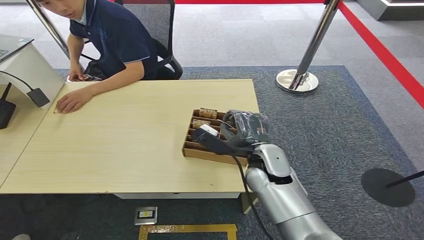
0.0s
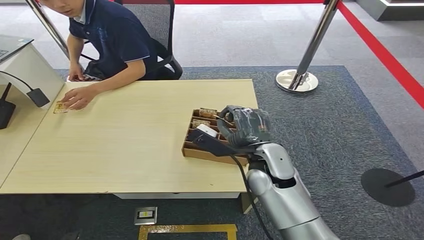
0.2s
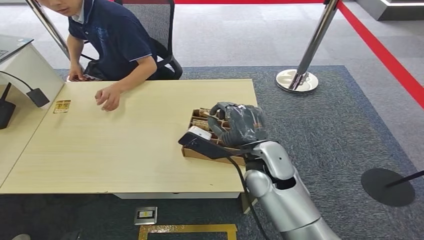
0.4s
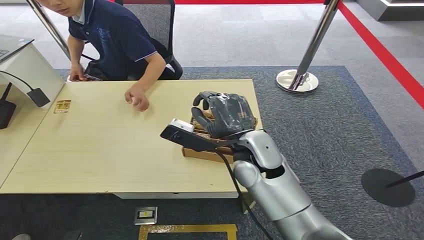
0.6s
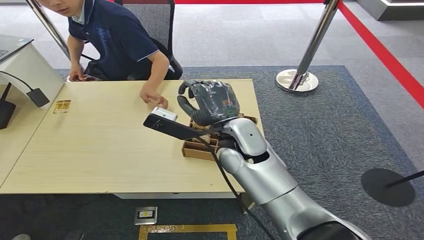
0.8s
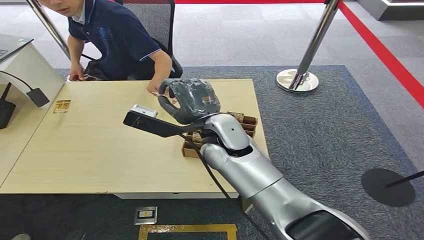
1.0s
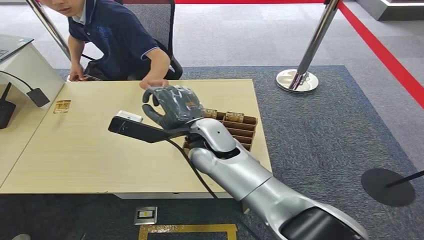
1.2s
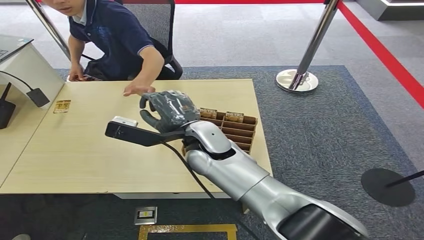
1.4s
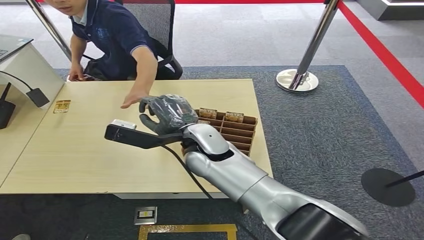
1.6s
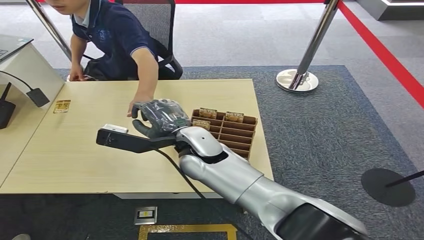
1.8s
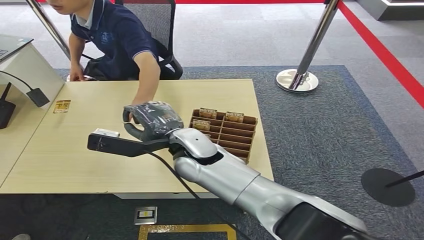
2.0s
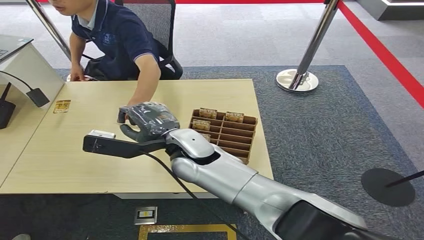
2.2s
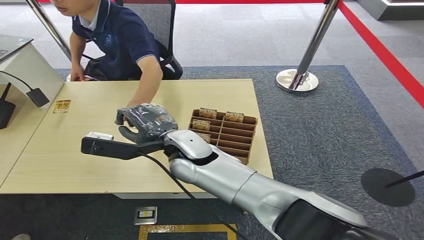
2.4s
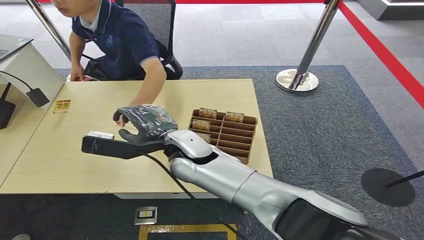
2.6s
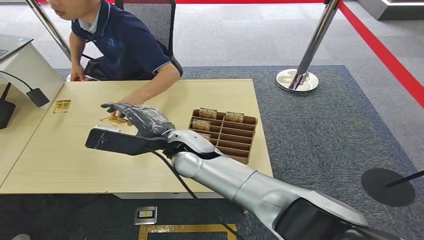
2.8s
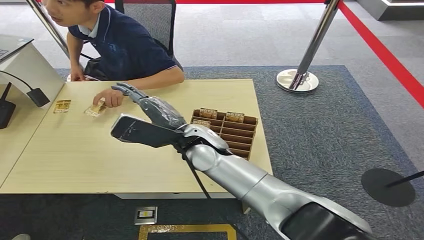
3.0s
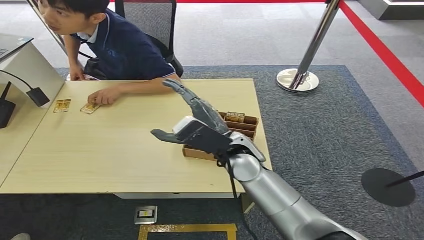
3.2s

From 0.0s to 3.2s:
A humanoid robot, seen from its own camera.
Step, from 0.6s to 3.2s: Hand the room card to the target.
From 0.0s to 1.6s: The right hand heads to the left and upward, covering roughly 10 cm.
